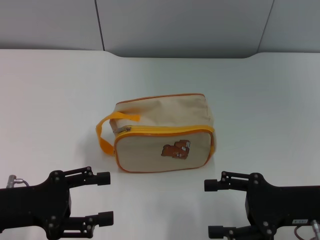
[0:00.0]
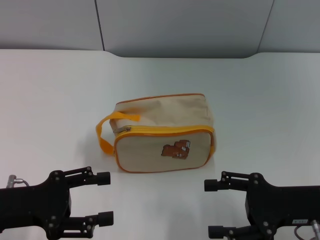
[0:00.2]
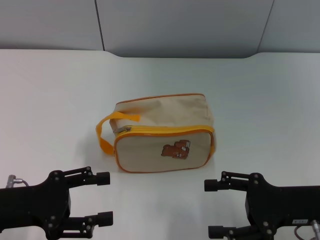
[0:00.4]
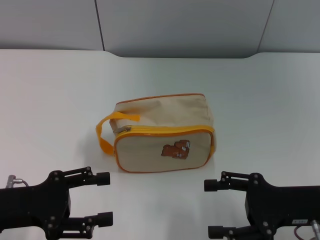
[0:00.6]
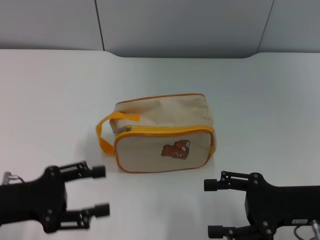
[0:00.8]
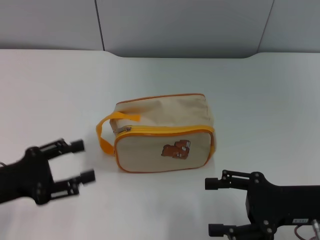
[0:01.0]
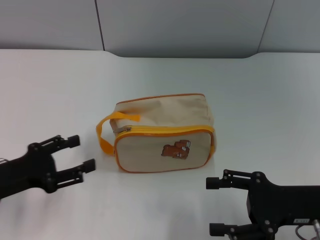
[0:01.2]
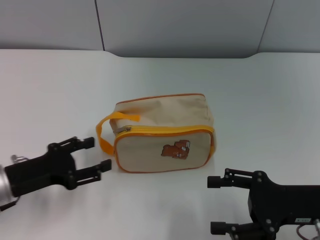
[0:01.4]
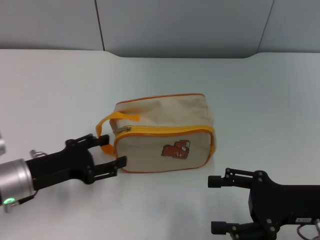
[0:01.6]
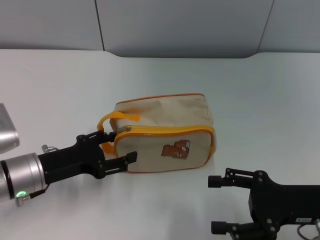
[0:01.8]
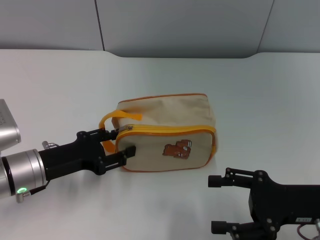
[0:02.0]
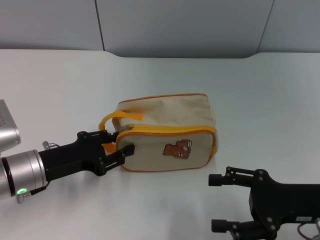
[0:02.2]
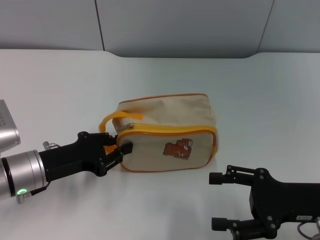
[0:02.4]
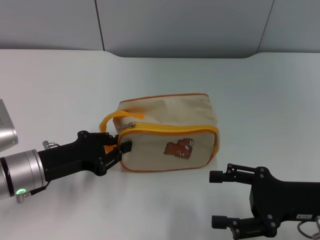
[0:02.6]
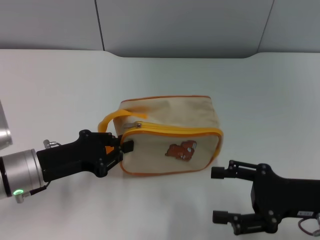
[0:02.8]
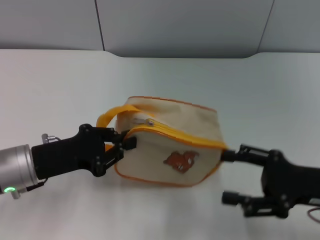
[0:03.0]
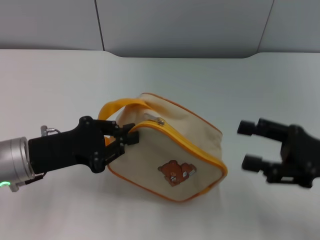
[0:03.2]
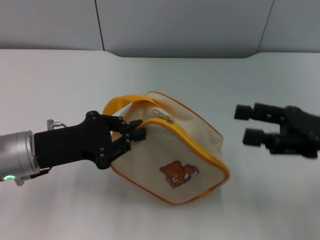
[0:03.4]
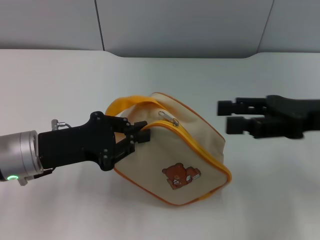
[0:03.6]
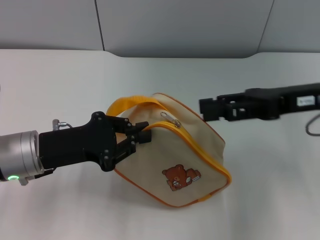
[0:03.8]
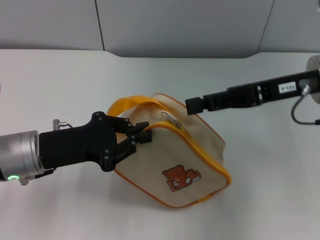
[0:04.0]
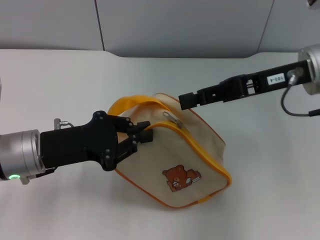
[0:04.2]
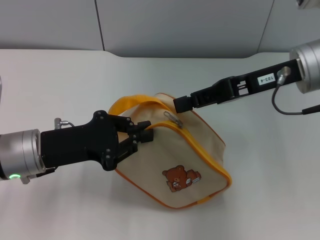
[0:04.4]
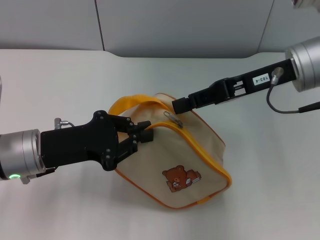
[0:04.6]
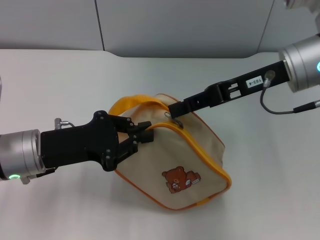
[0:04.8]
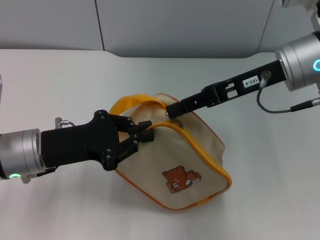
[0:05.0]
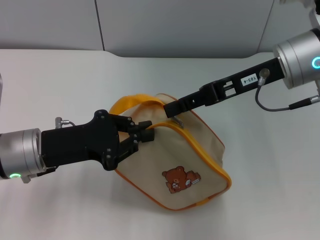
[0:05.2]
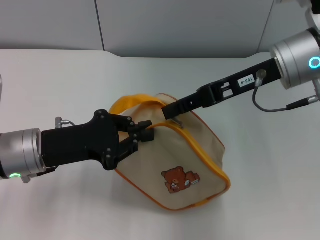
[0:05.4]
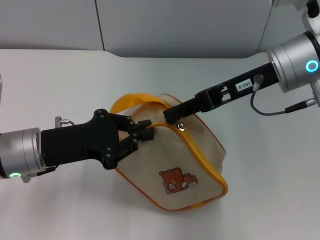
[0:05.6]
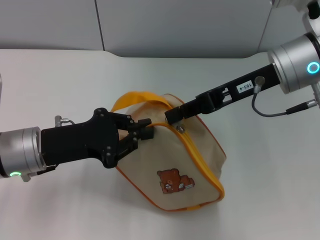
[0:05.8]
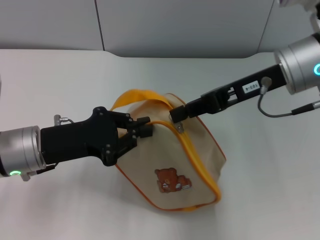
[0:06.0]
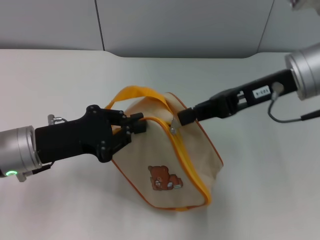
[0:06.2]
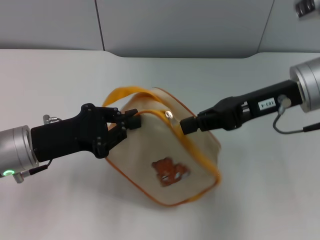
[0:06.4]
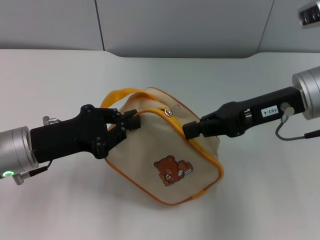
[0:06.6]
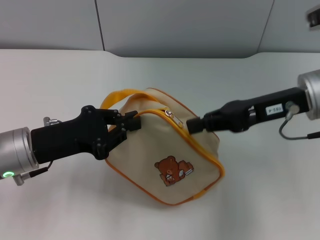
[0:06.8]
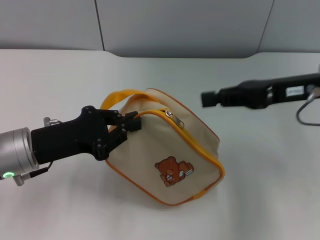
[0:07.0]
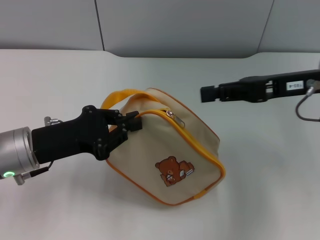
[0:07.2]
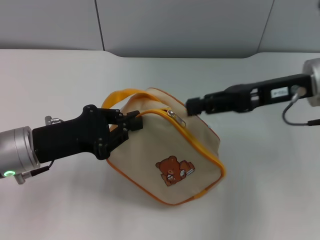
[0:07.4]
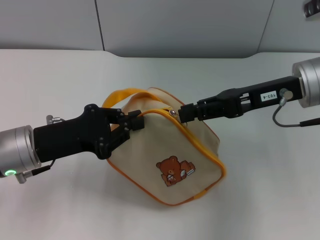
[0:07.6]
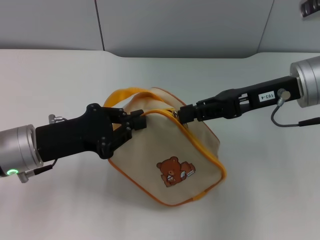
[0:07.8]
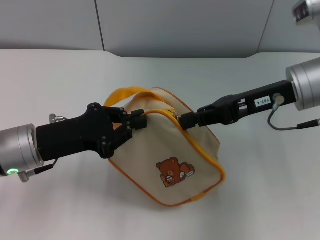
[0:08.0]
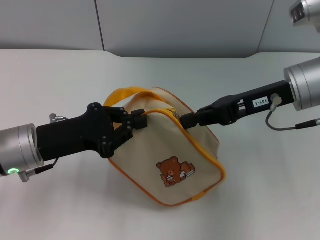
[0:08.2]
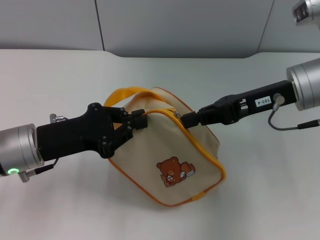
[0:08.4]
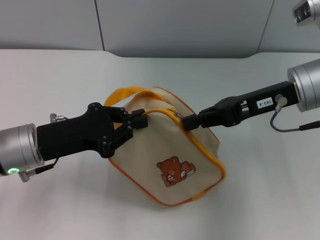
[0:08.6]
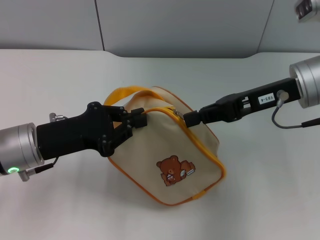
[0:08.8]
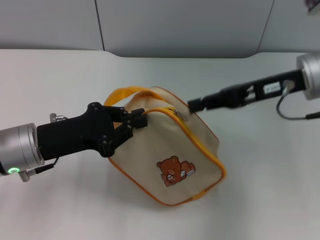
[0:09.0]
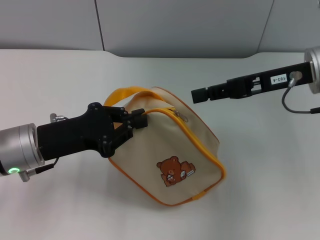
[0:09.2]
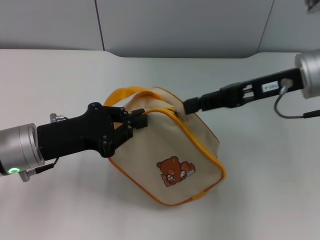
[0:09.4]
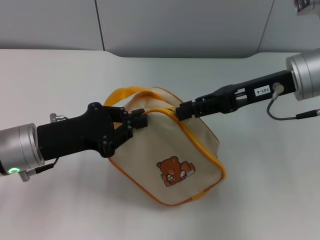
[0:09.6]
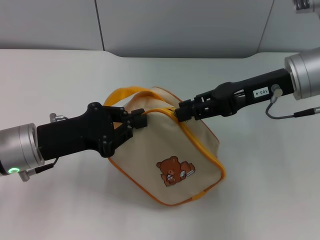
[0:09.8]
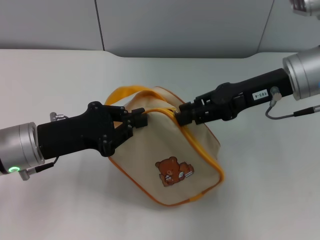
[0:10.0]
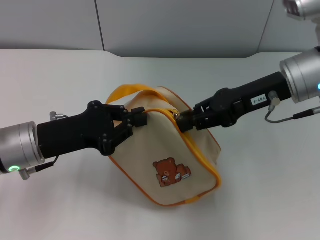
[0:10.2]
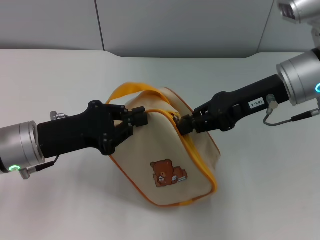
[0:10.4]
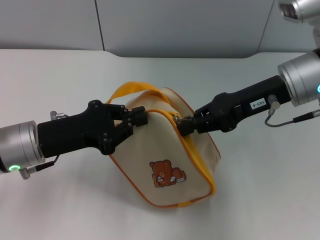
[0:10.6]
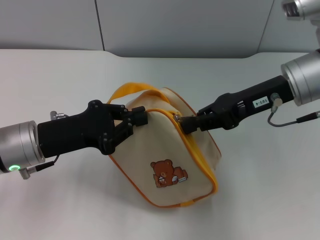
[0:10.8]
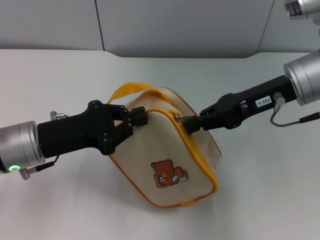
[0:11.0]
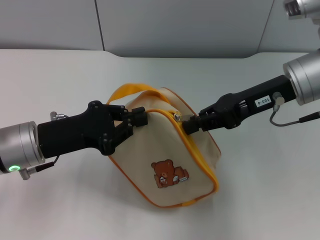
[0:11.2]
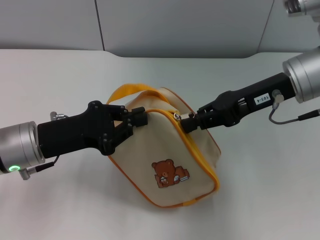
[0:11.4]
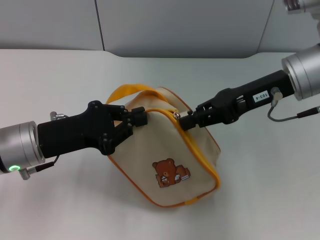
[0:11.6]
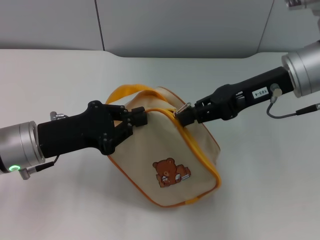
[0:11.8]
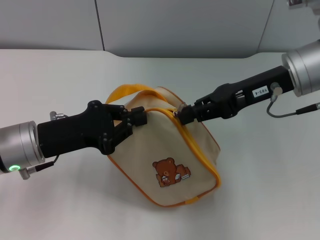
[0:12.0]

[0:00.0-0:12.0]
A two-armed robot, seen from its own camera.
Step, 0:00.0 to 0:03.6: Pick up the bag with left gripper.
0:00.0 to 0:01.6: The left gripper ends up approximately 5 cm from where it was.
0:01.6 to 0:03.0: The left gripper closes its fingers.
0:03.0 to 0:04.4: The right gripper goes approximately 20 cm forward, upward and to the left, and closes its fingers.
0:04.4 to 0:06.0: The right gripper closes.
0:07.6 to 0:12.0: The grippers move only a little.

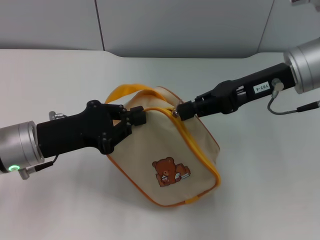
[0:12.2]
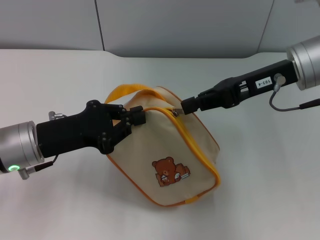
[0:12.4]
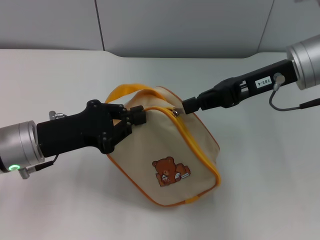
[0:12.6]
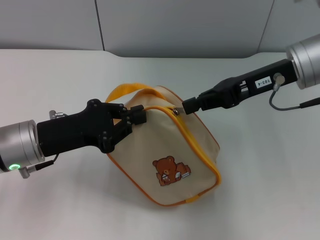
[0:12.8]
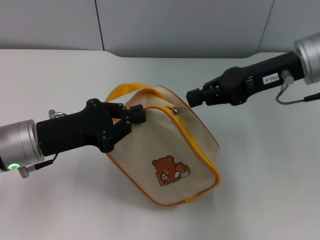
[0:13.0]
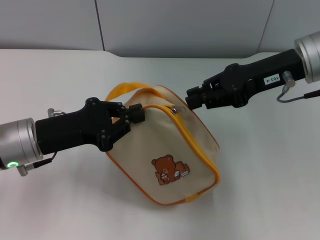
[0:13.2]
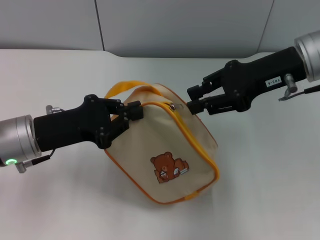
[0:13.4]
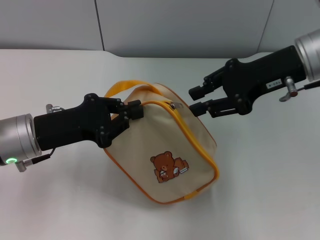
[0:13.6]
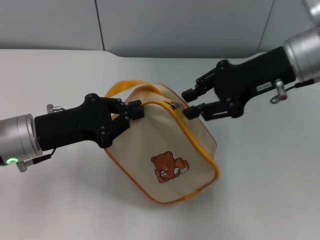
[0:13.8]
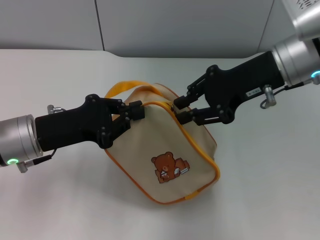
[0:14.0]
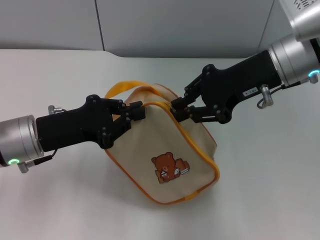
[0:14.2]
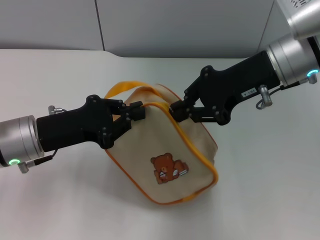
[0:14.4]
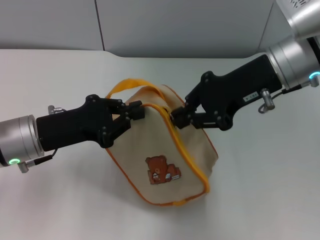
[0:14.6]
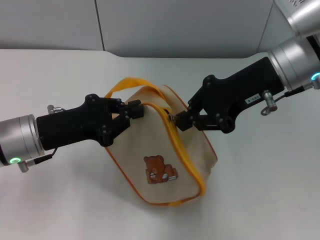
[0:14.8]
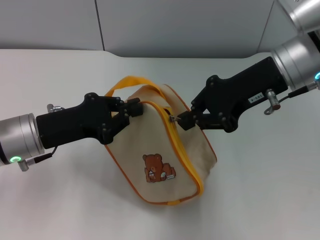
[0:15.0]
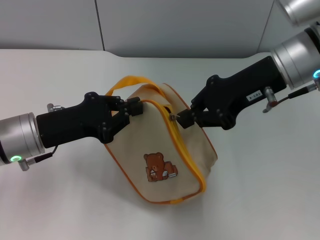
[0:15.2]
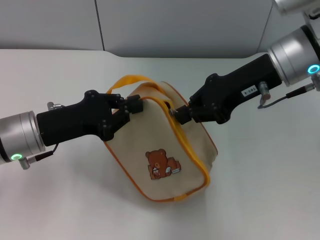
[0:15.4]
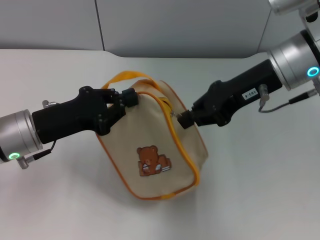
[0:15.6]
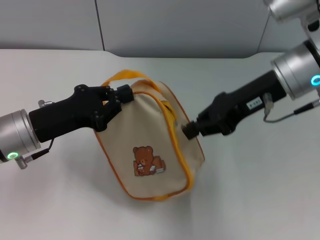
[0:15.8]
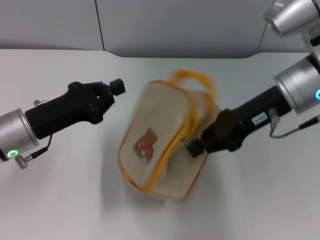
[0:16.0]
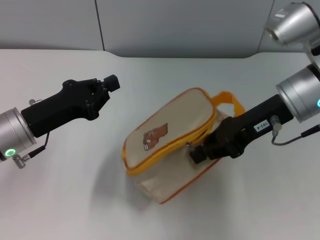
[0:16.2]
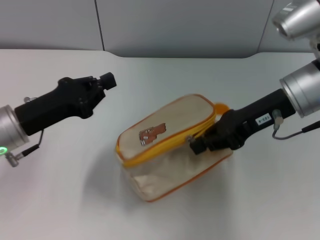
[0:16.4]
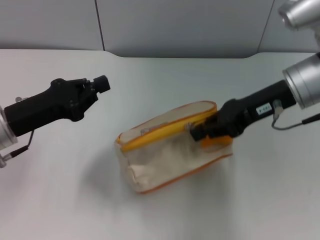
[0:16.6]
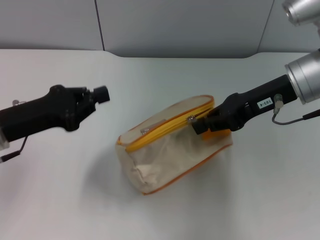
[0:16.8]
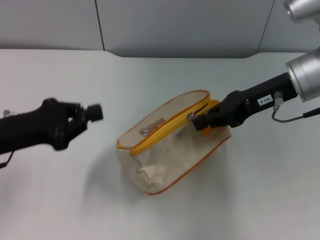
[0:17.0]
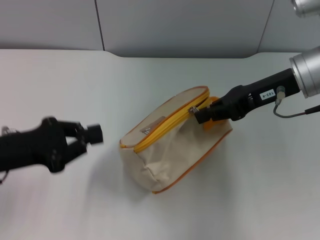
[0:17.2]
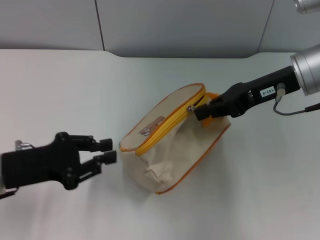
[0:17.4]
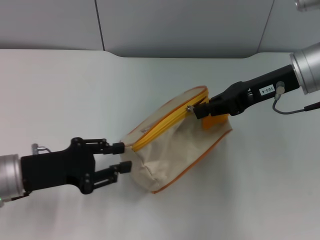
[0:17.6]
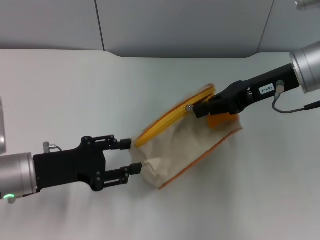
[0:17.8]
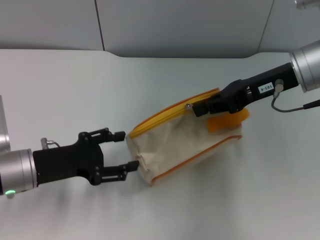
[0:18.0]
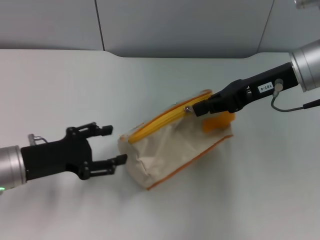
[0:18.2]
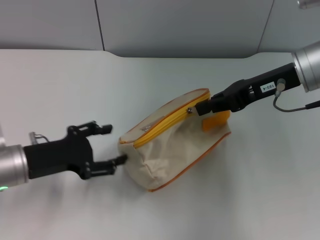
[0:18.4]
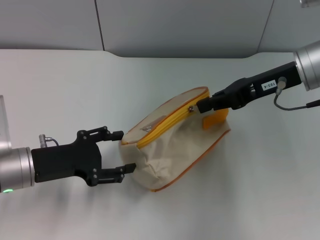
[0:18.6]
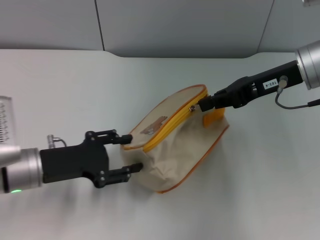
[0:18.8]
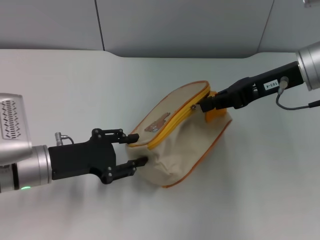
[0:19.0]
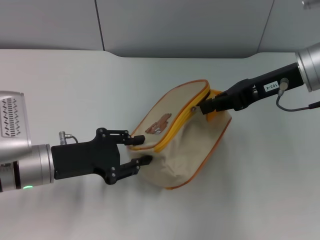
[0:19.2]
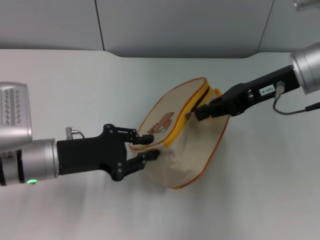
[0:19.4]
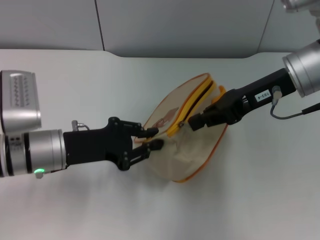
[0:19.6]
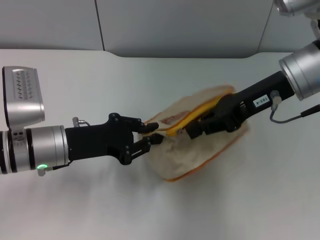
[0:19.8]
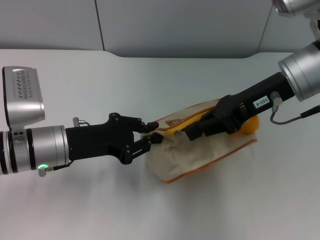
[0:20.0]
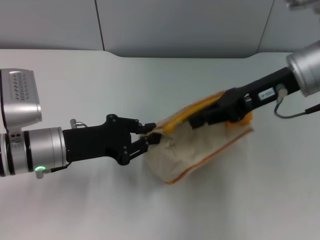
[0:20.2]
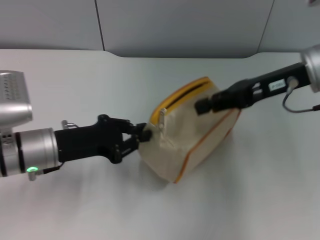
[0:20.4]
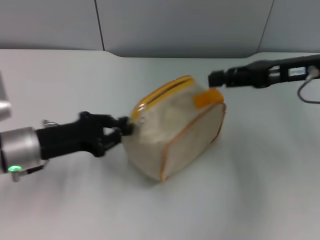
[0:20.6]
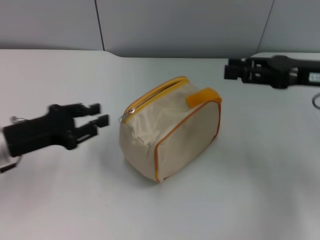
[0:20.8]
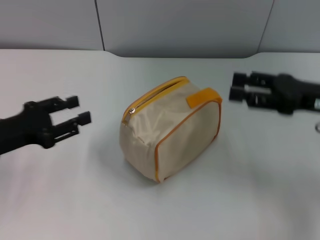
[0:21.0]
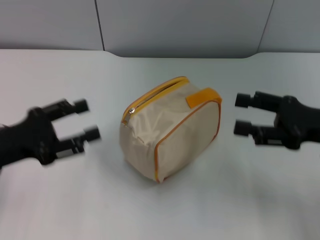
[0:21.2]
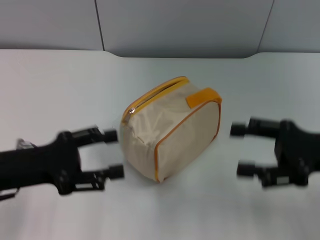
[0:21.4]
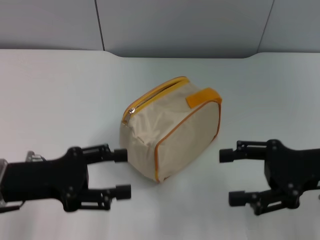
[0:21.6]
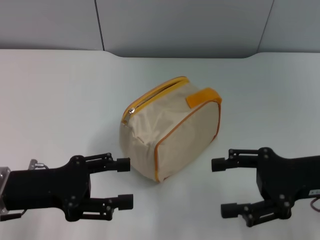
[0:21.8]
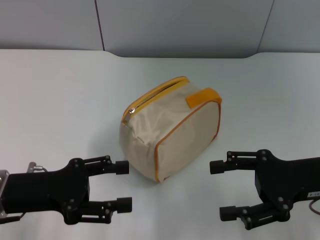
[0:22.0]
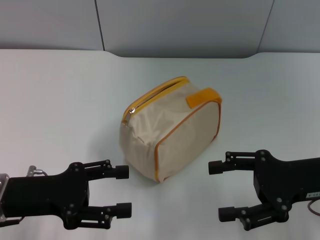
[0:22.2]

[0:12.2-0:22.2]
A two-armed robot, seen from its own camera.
Step, 0:12.2 to 0:20.2: Unzip the zipper of bag with right gripper.
Step, 0:20.4 to 0:21.0: Place the bag on the table with left gripper.
0:13.6 to 0:15.0: The right gripper closes its fingers.
0:16.4 to 0:18.0: The left gripper opens up.
0:18.0 to 0:19.4: The grippers stay close to where they were, moving slightly.
0:19.4 to 0:20.8: The left gripper travels to the left by roughly 5 cm, while the right gripper shifts roughly 5 cm to the right.
0:20.8 to 0:22.2: The right gripper moves backward and downward, about 10 cm, and opens up. Meanwhile the left gripper travels backward by about 5 cm, and opens its fingers.
